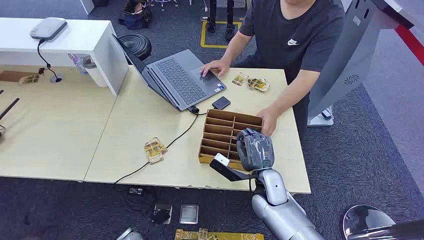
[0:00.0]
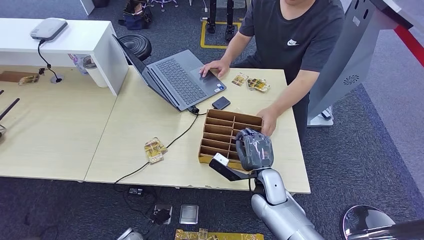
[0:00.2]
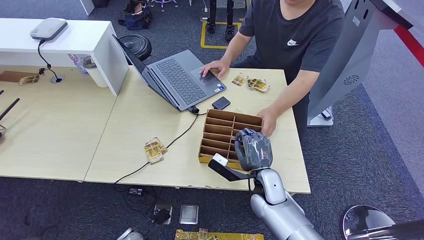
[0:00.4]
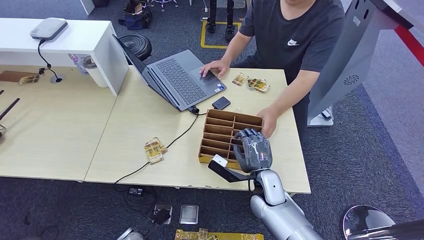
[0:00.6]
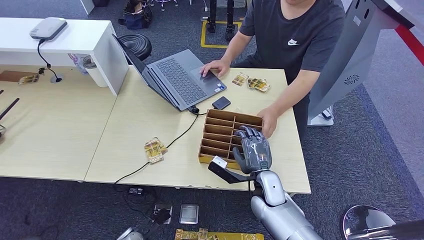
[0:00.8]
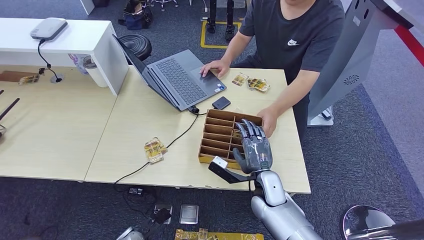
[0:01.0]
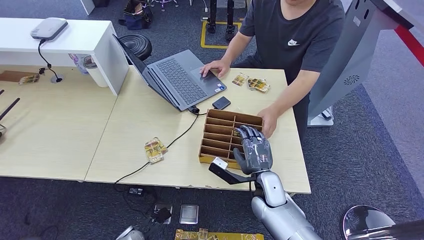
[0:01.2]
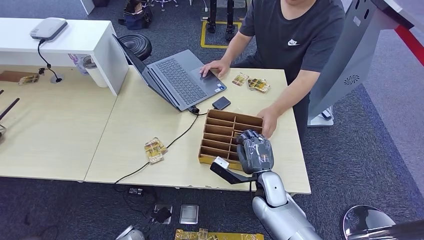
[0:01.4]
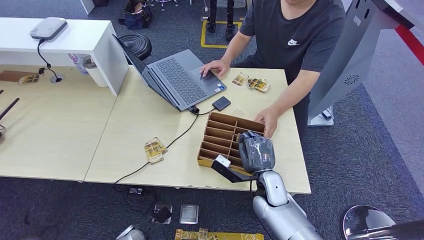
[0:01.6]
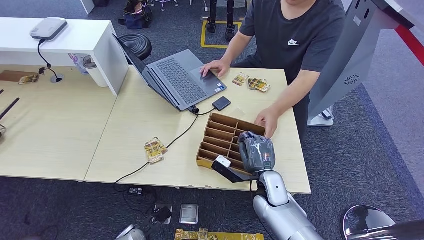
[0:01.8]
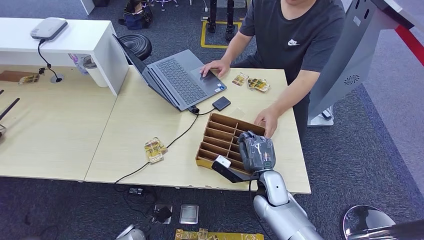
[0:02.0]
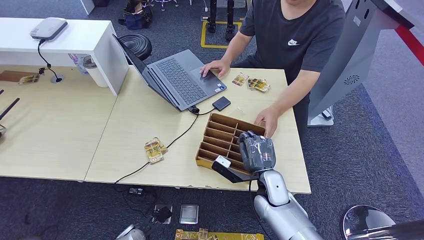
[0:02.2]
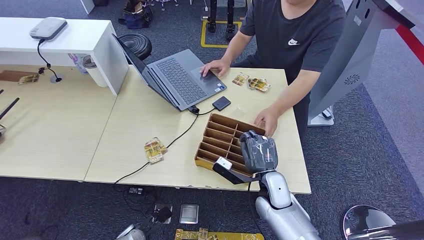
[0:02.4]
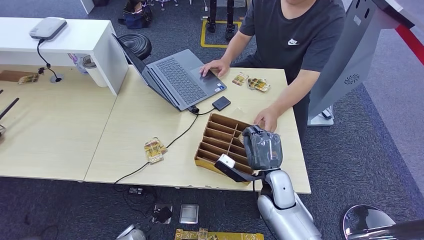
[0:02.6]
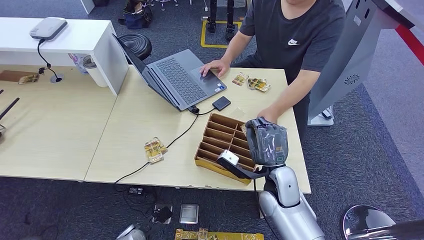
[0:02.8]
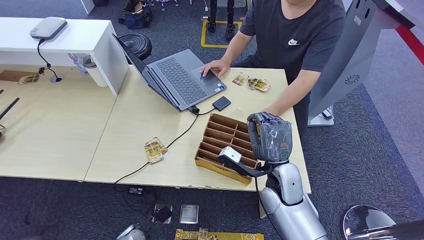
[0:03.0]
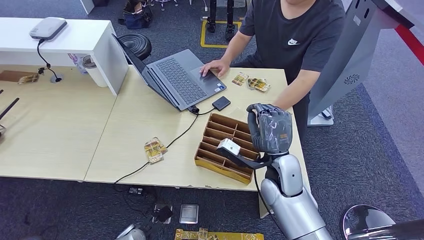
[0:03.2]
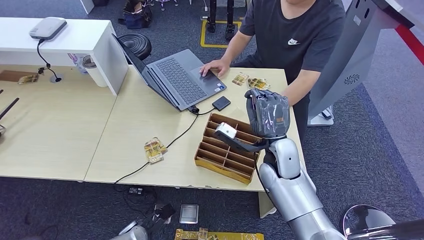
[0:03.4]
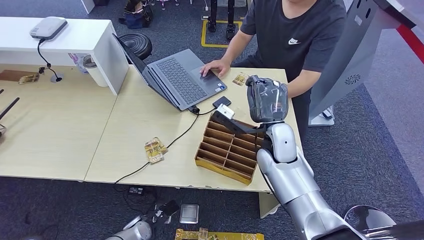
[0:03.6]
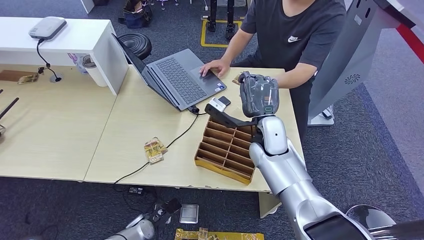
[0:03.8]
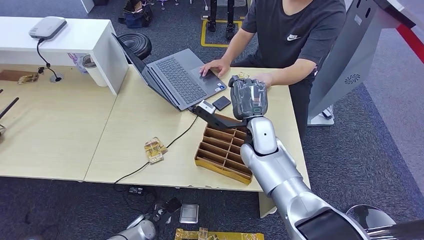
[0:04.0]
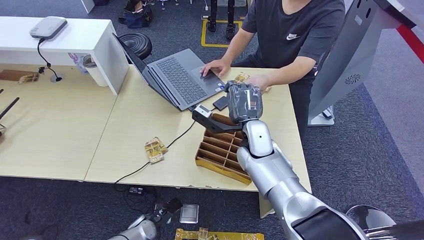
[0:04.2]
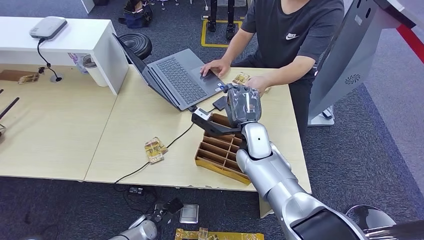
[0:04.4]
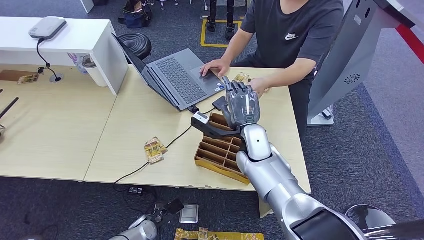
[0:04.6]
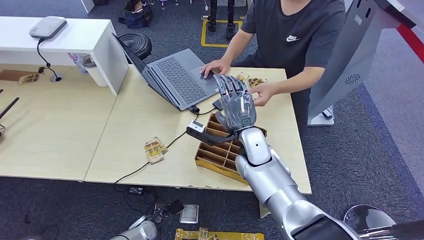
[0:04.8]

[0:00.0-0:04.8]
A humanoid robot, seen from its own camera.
Step, 0:00.0 to 0:02.2: Pick up the key card from the card box.
Step, 0:02.4 to 0:04.8: Hand the key card to the target.
0:01.6 to 0:03.2: The right hand is displaced upward by some 10 cm.
0:03.2 to 0:04.8: The right hand heads to the left and forward, covering some 10 cm.

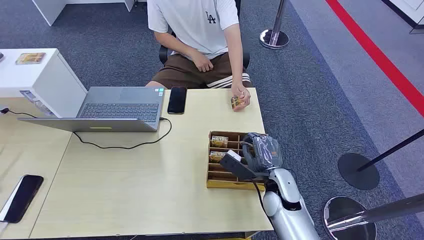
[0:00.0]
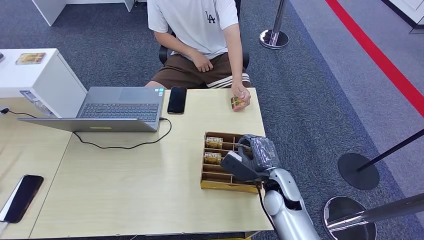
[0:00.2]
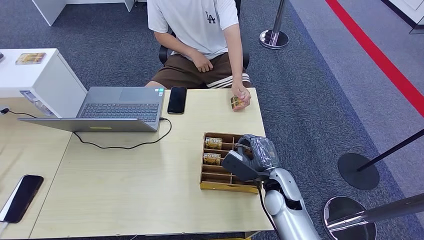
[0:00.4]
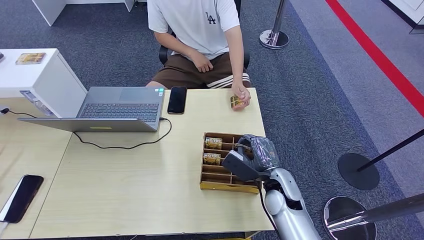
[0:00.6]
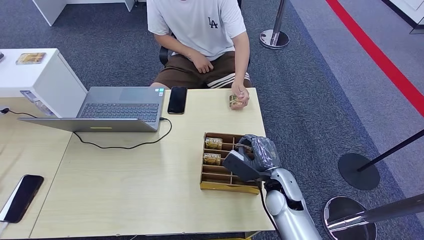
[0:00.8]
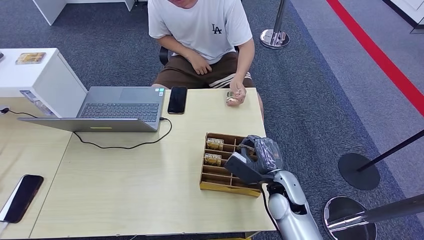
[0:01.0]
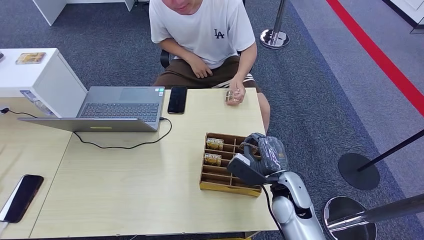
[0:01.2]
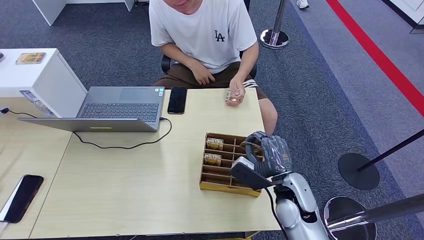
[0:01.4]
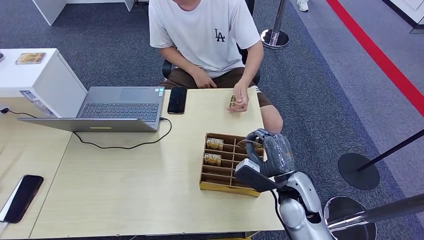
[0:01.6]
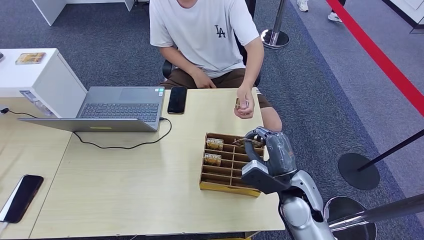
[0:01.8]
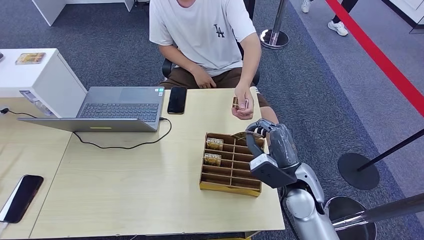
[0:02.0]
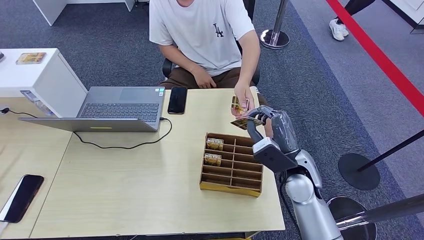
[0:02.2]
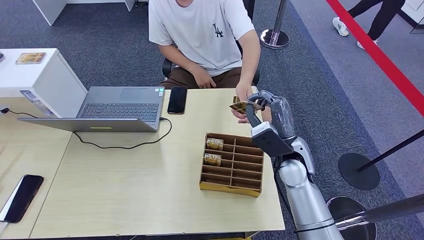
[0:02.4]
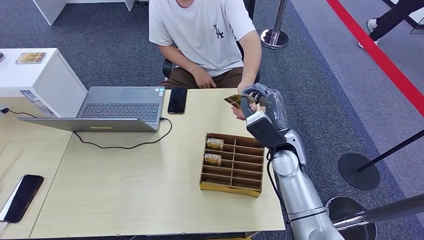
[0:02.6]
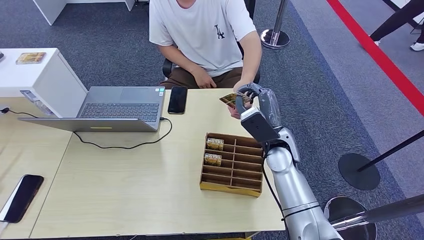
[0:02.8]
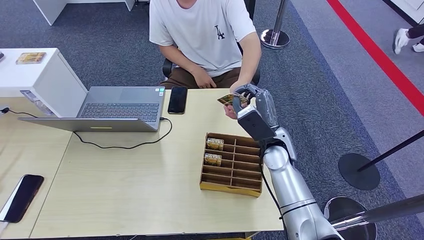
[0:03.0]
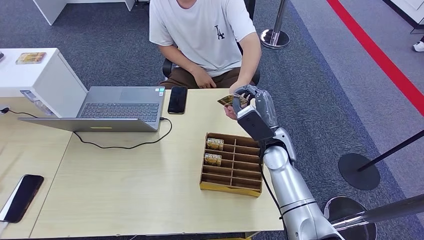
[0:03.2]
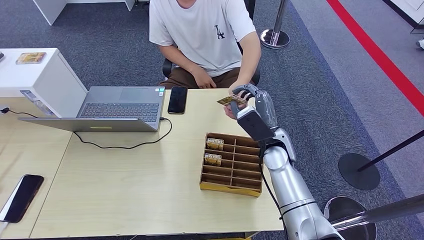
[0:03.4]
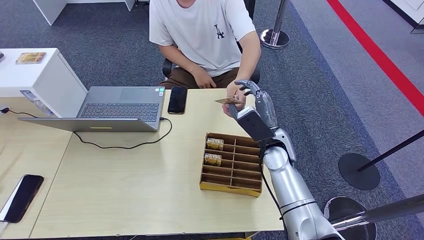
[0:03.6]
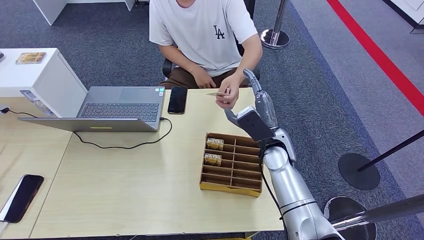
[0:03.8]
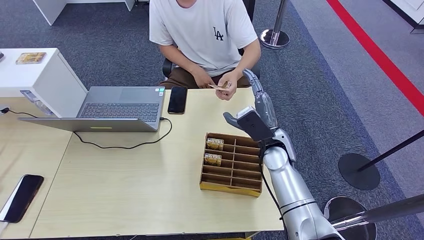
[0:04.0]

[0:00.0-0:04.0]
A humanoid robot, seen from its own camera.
Step, 0:00.0 to 0:02.0: Pick up the key card from the card box.
Step, 0:02.2 to 0:04.0: Hand the key card to the target.
0:01.4 to 0:02.6: The right hand is displaced forward and upward by roughly 10 cm.
0:02.6 to 0:04.0: The hands stay close to where they were, moving slightly.
